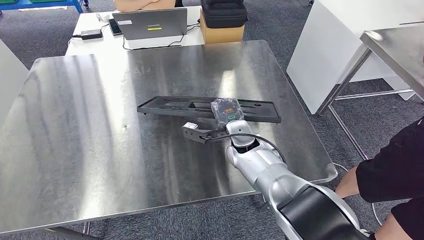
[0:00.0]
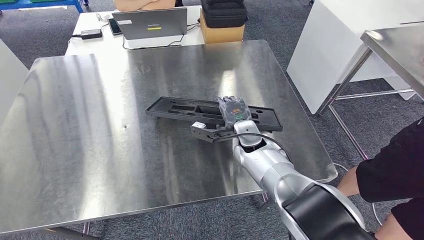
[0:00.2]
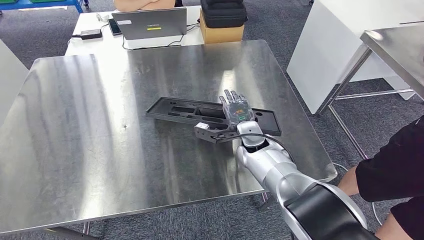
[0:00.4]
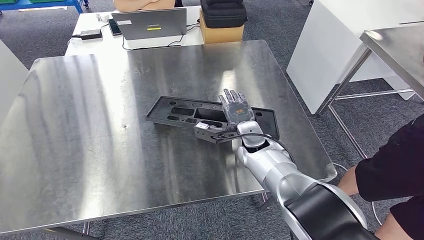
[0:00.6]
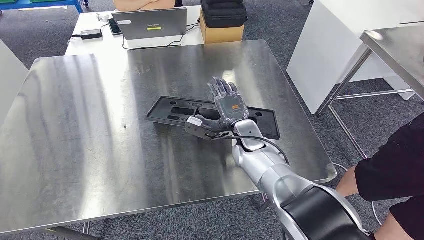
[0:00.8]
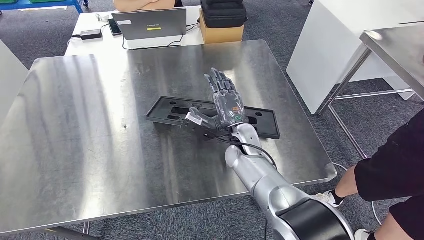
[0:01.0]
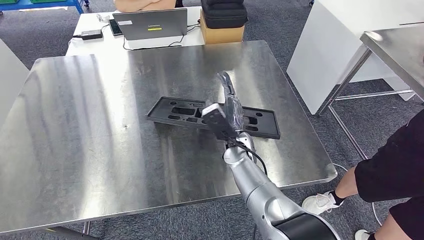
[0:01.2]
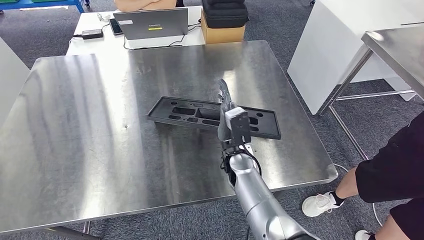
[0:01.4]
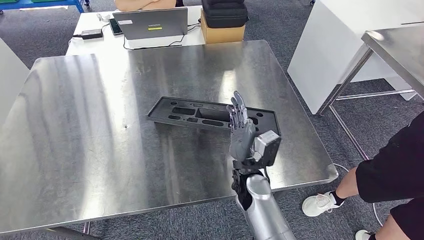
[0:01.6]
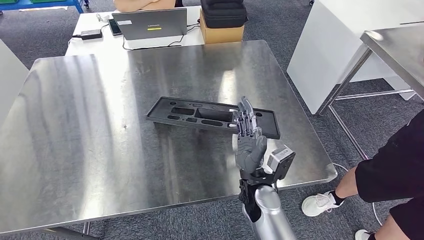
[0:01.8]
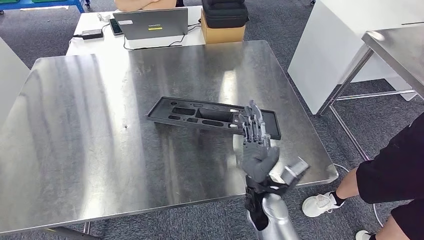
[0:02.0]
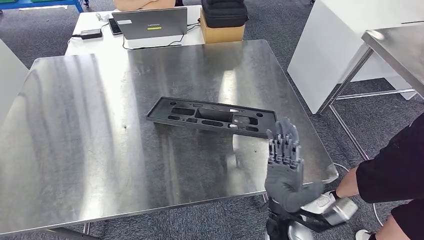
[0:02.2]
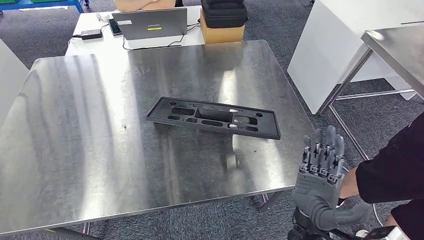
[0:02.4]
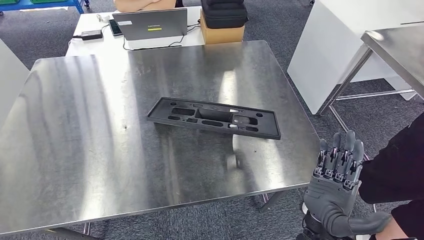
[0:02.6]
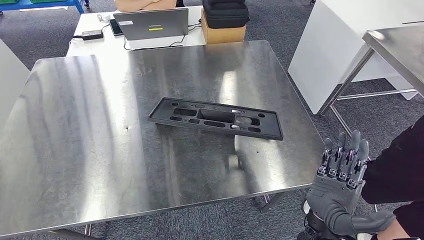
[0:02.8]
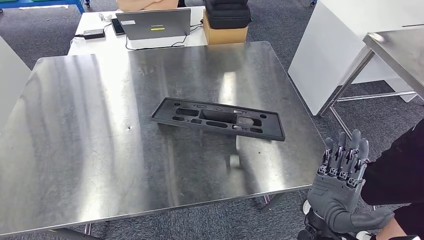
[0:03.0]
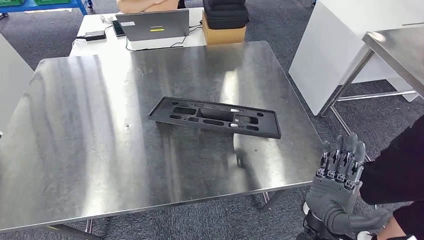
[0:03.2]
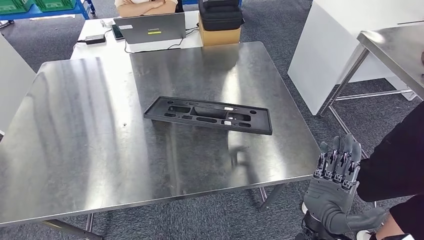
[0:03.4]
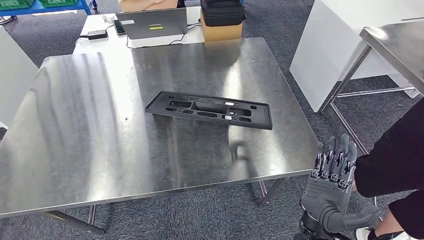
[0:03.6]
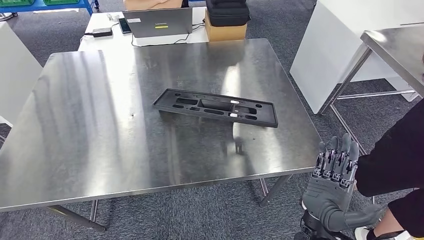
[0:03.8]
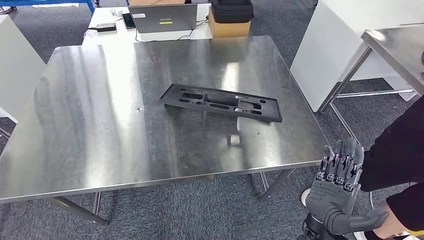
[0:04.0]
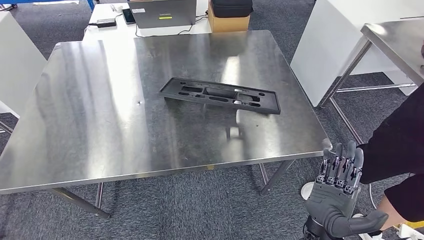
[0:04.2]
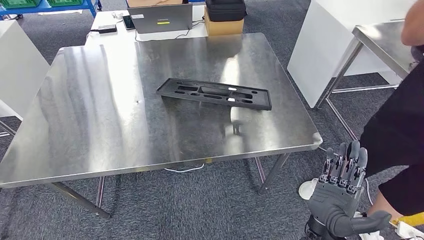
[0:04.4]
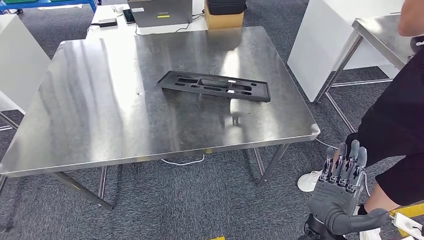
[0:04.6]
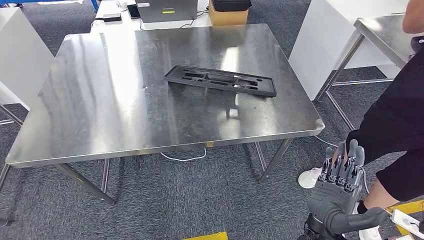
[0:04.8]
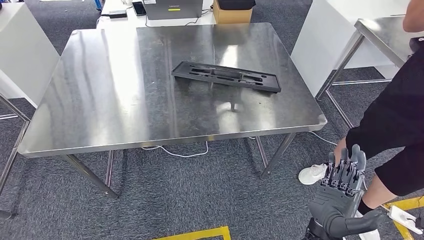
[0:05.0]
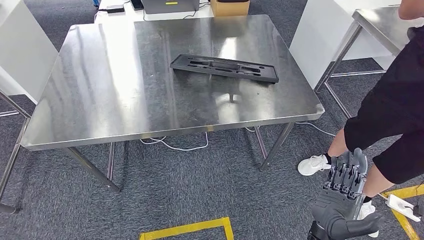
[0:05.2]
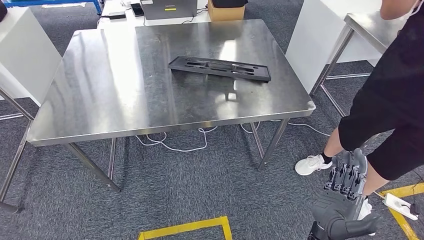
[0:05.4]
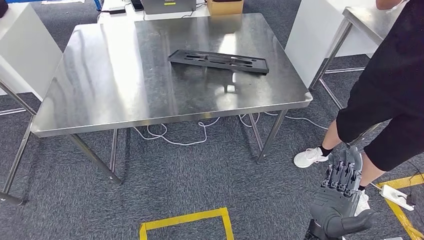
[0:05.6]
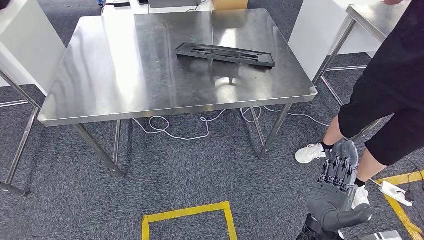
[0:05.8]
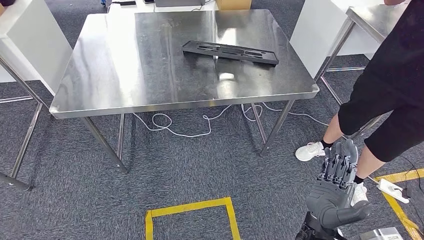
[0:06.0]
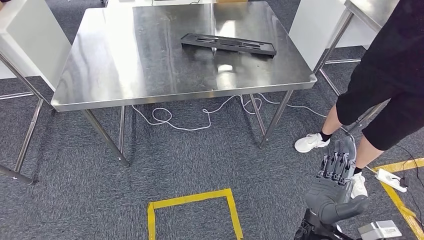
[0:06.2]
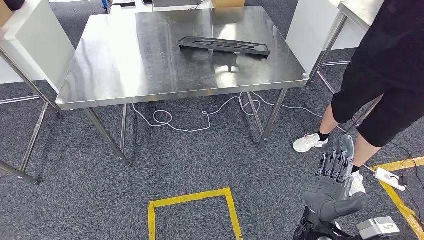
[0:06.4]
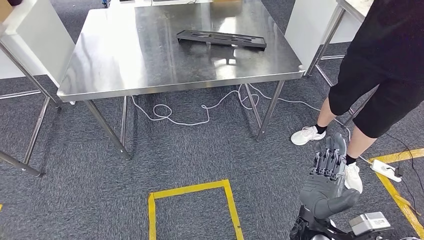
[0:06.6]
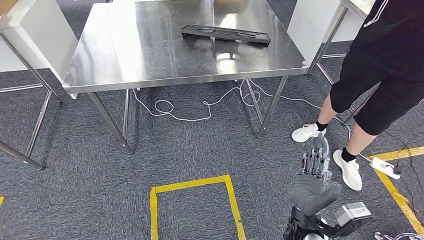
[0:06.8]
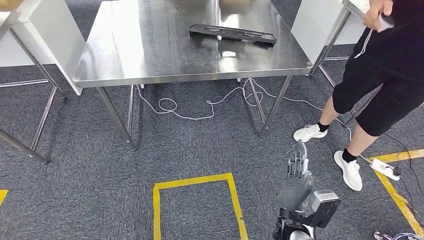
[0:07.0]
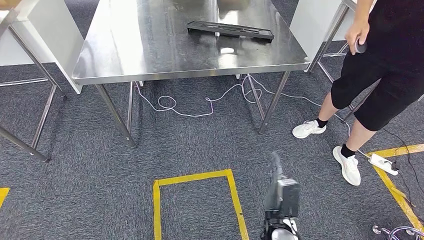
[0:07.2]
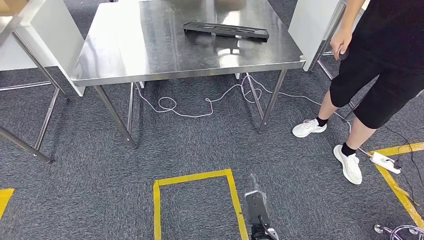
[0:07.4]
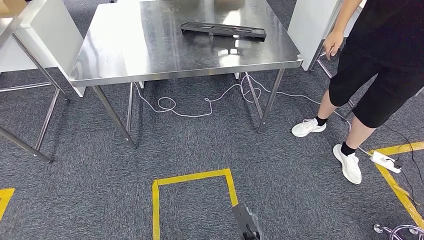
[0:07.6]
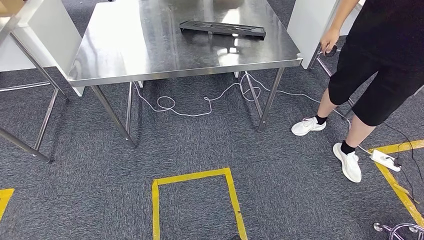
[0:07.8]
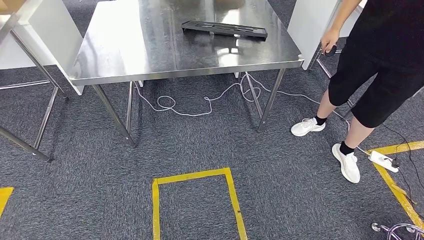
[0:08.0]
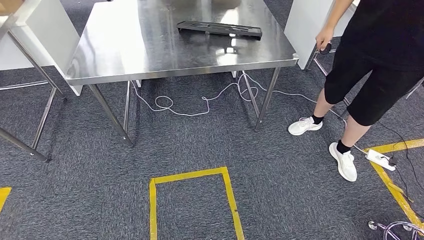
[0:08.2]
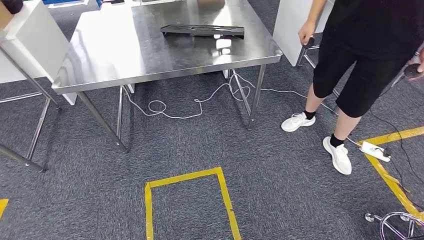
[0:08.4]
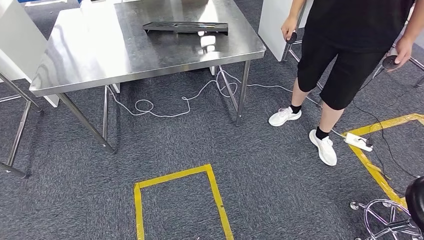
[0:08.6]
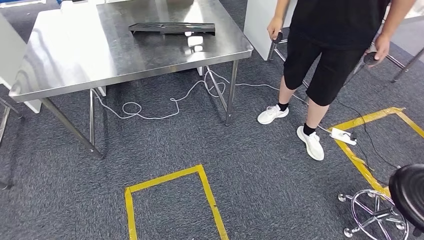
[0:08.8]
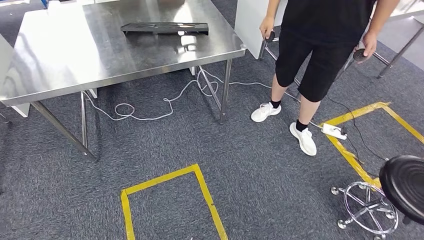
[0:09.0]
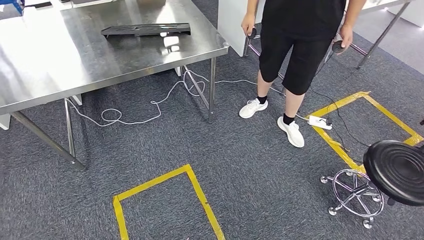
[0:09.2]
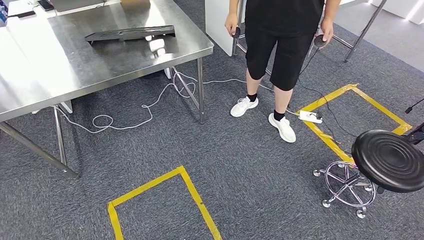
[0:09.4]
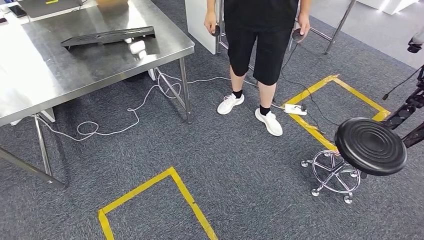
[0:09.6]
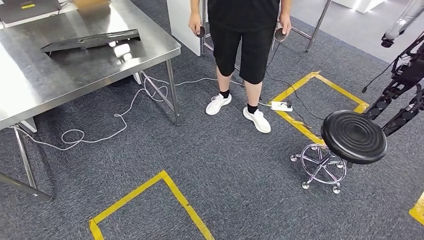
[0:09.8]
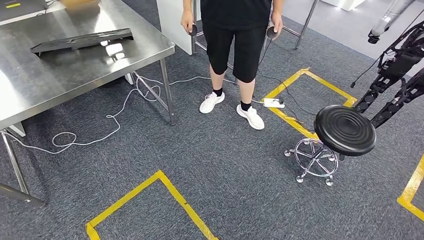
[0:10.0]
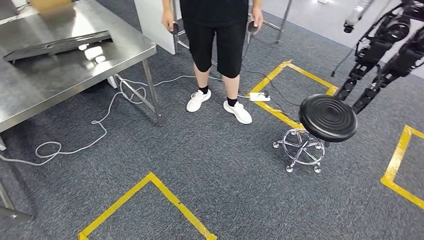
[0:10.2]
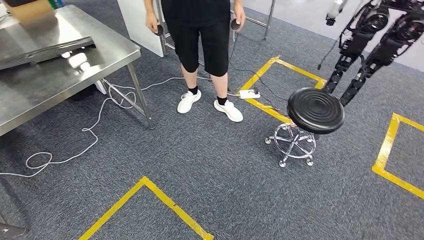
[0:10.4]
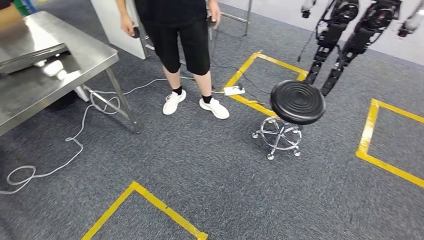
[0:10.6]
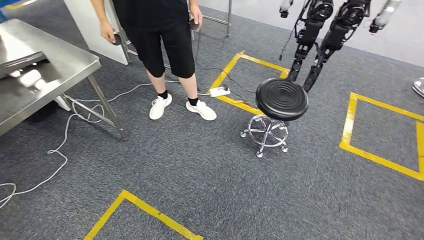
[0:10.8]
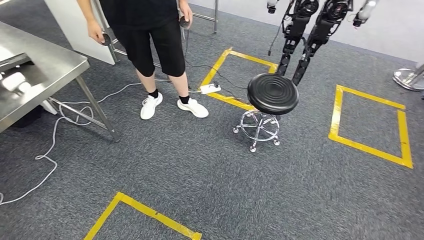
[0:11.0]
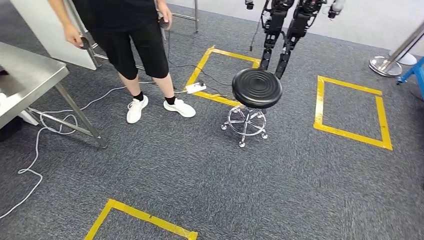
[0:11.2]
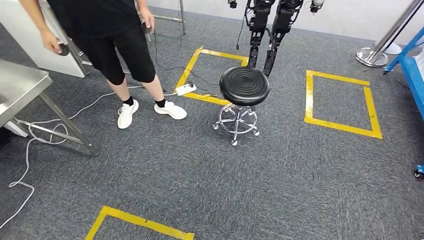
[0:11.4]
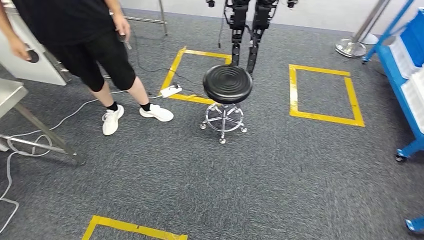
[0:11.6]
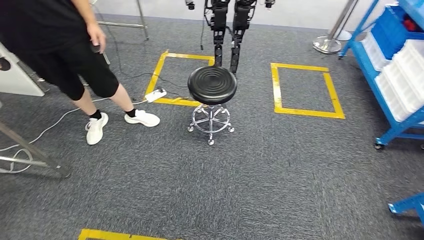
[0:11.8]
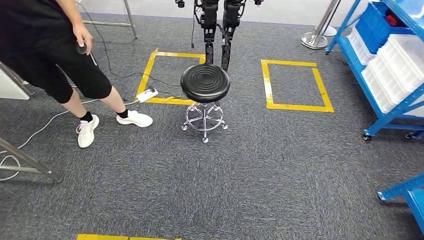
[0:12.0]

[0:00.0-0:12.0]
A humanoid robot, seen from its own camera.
Step, 0:00.0 to 0:08.0: Insert the large material into the corresponding slot on the workbench.
0:00.0 to 0:01.6: The right hand travels backward by roughly 10 cm.
0:01.6 to 0:03.0: The right hand moves backward and to the right, about 20 cm.

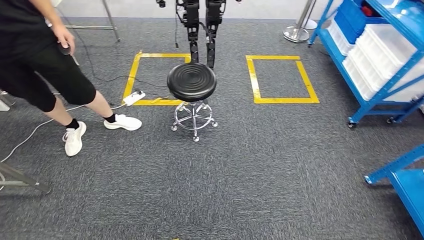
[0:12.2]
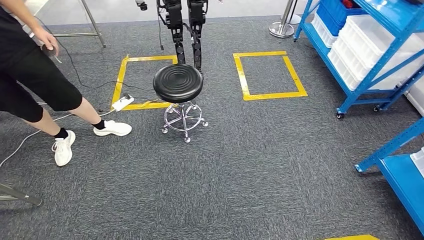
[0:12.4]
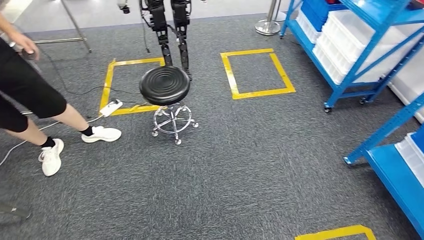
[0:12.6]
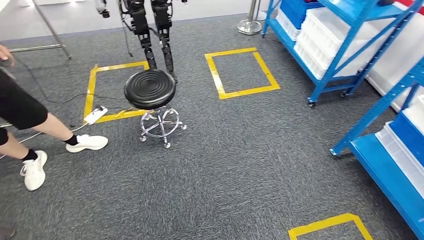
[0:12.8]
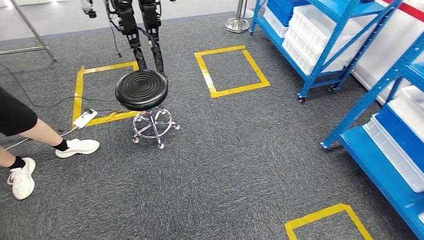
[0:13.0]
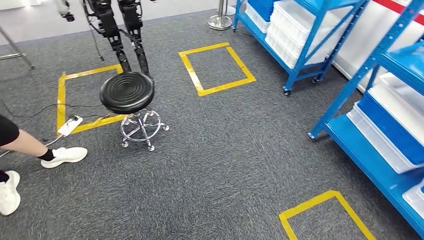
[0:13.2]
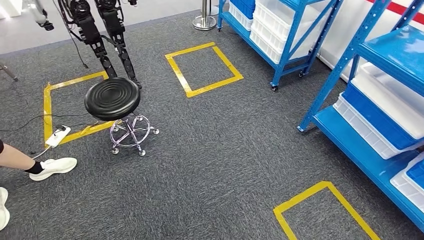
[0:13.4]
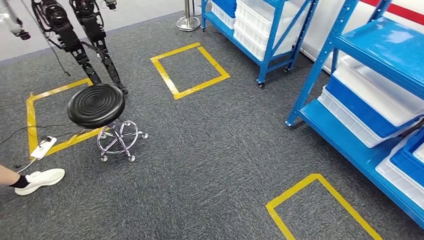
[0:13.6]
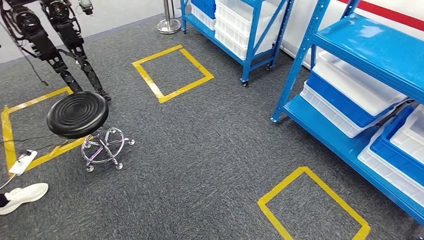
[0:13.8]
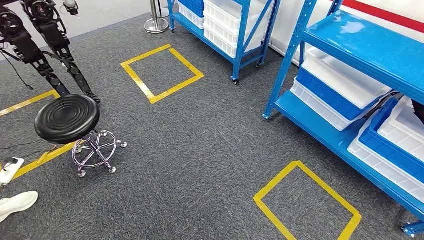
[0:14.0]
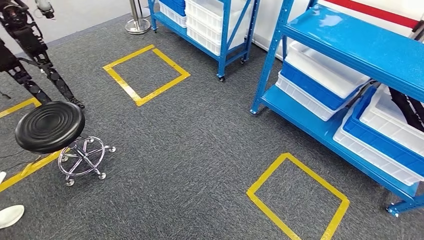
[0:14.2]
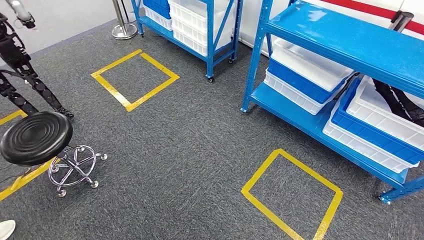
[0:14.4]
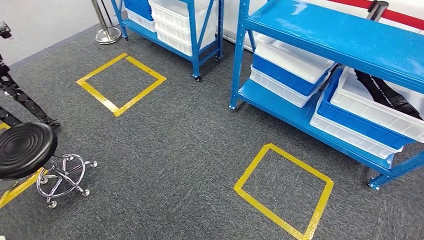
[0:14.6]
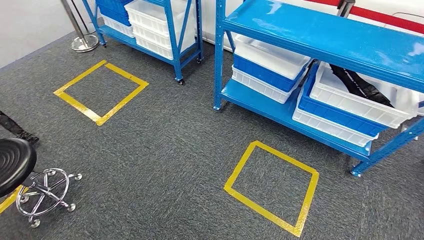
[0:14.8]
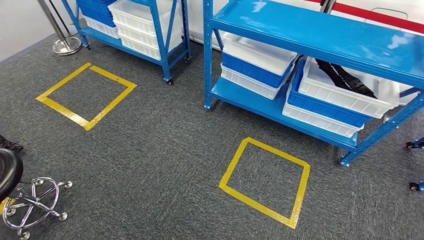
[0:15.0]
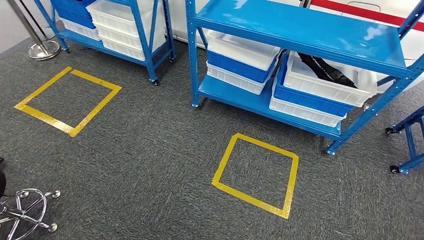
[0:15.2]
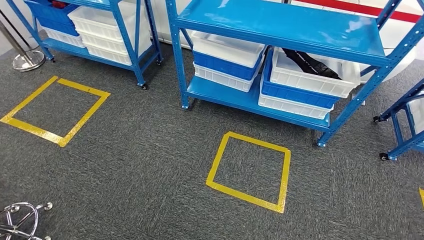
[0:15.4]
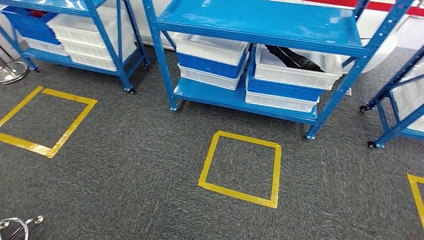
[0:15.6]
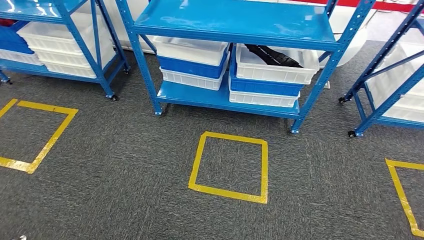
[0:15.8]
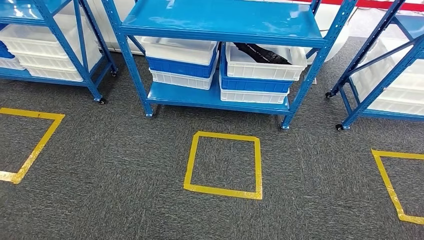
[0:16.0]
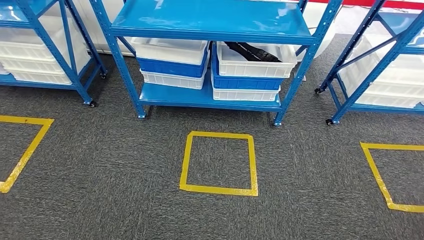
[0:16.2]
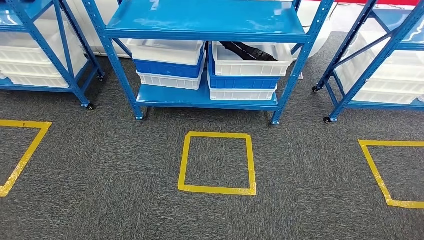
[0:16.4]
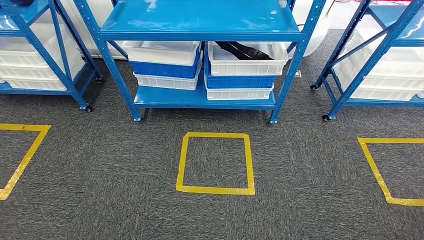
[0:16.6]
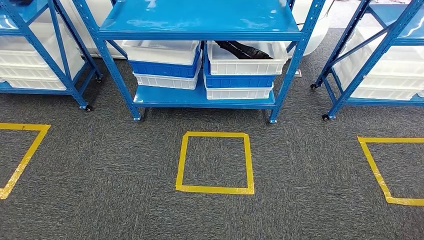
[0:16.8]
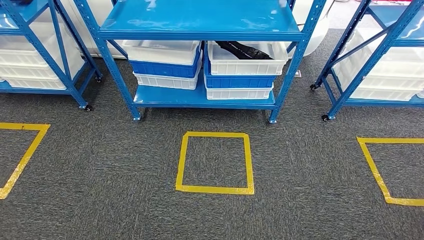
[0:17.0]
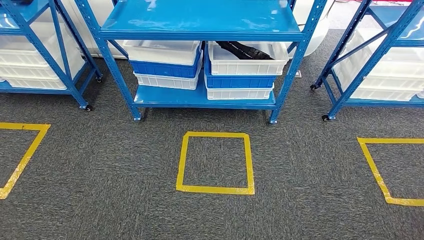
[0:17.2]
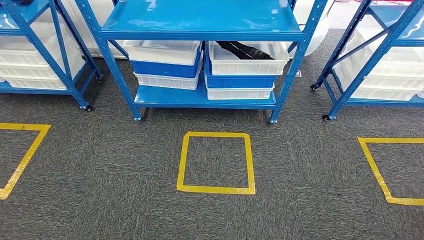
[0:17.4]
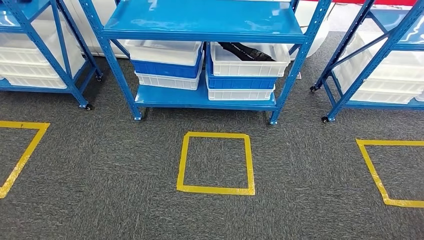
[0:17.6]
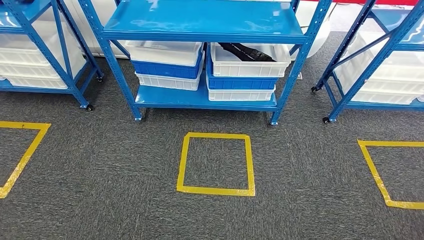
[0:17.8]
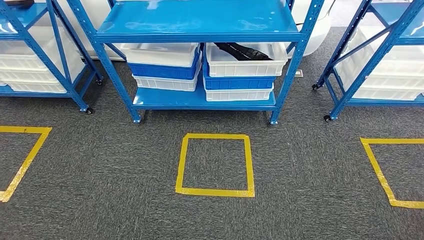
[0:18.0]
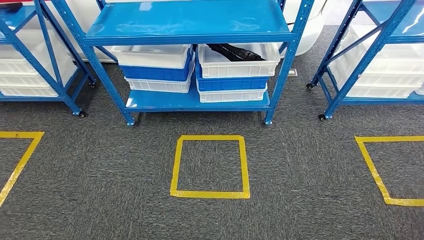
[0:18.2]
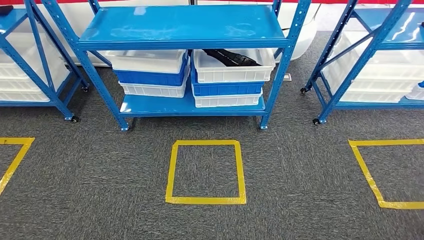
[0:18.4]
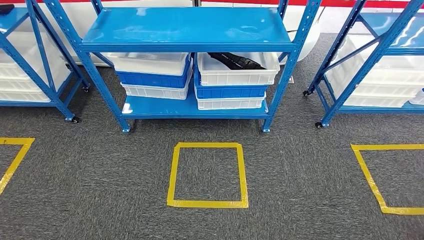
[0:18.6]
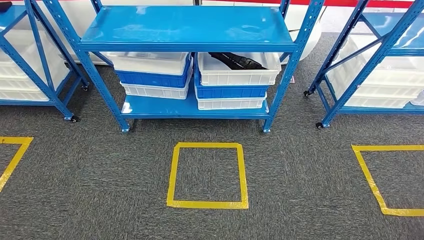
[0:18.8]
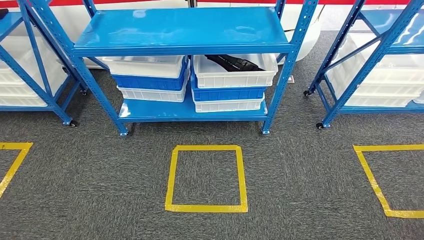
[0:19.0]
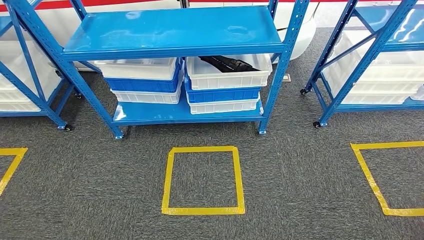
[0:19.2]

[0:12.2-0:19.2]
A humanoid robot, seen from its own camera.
0:16.4 to 0:17.8: Both hands stay about where they are.
